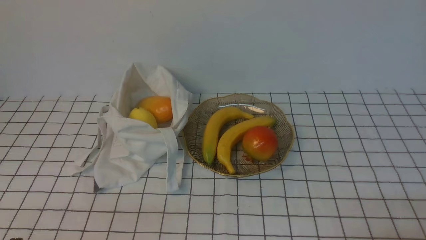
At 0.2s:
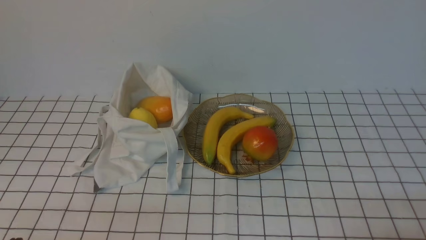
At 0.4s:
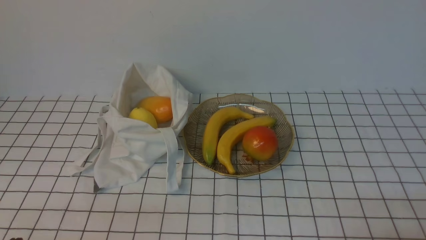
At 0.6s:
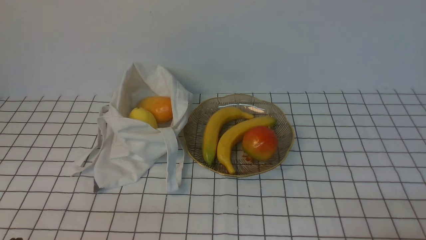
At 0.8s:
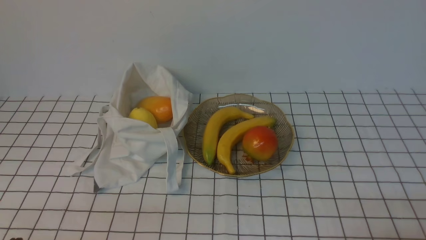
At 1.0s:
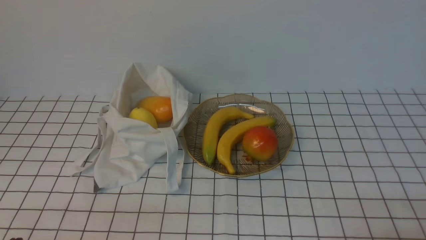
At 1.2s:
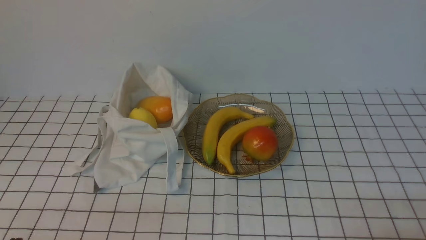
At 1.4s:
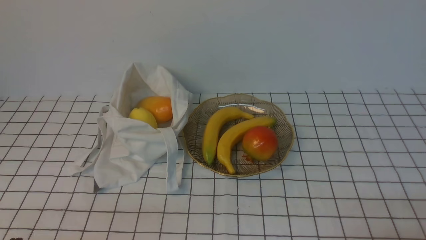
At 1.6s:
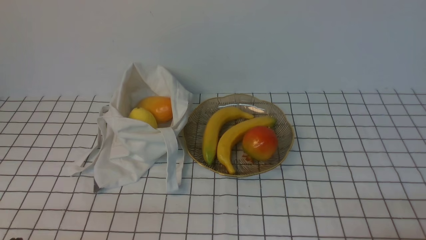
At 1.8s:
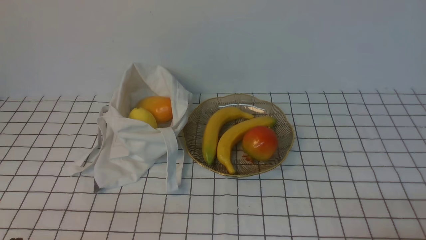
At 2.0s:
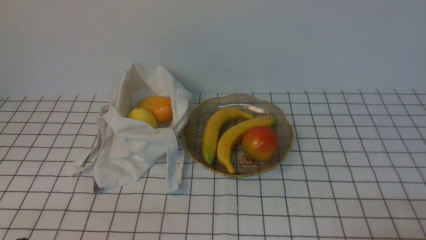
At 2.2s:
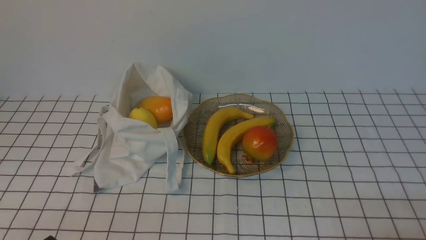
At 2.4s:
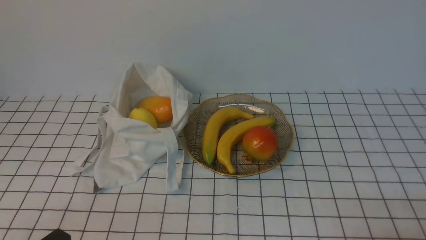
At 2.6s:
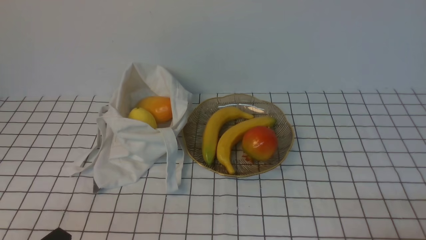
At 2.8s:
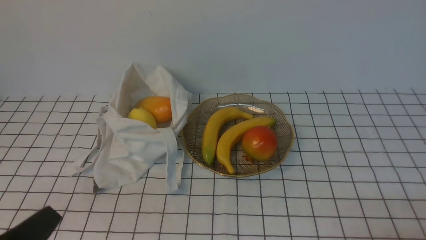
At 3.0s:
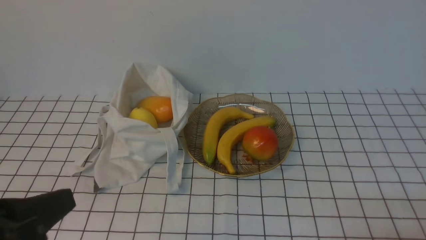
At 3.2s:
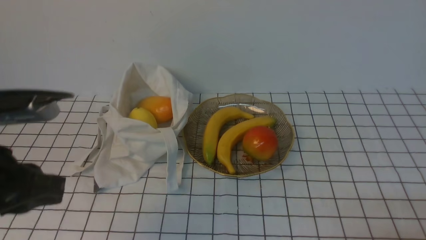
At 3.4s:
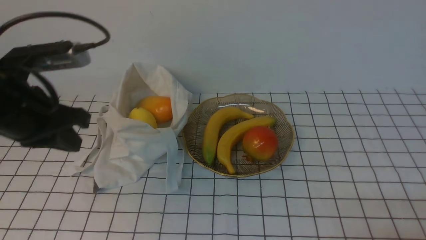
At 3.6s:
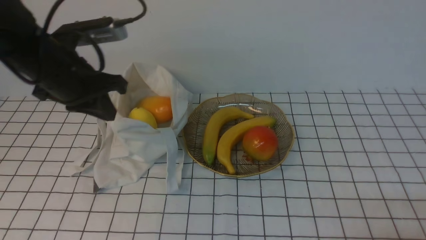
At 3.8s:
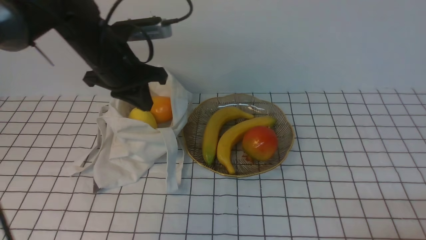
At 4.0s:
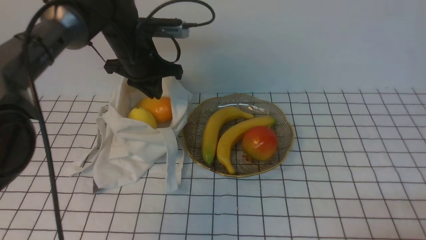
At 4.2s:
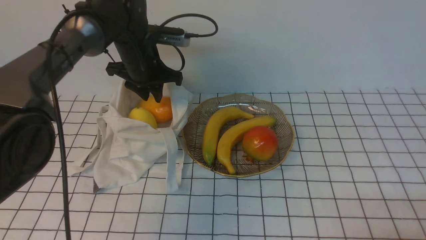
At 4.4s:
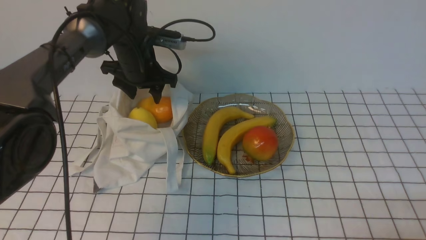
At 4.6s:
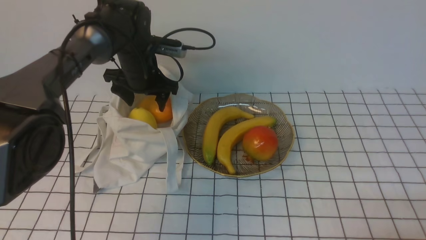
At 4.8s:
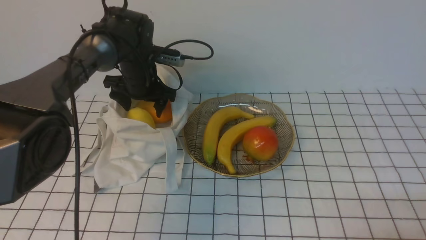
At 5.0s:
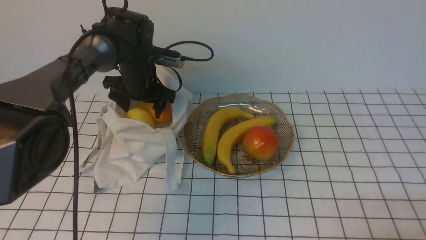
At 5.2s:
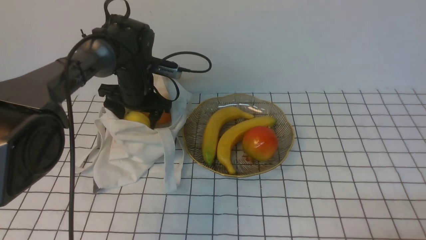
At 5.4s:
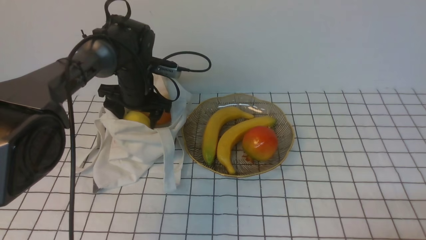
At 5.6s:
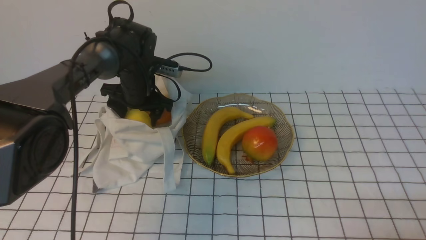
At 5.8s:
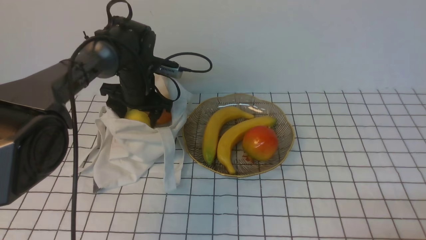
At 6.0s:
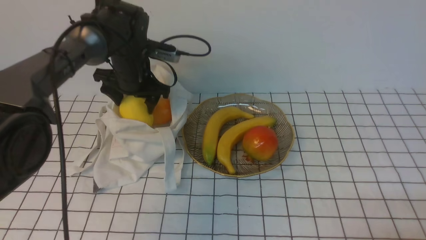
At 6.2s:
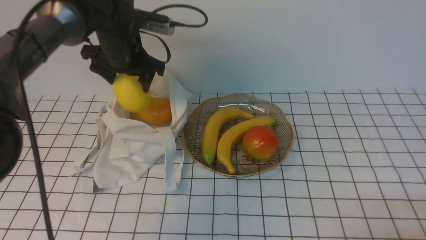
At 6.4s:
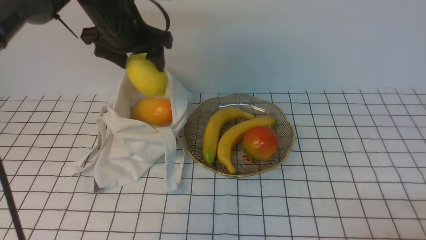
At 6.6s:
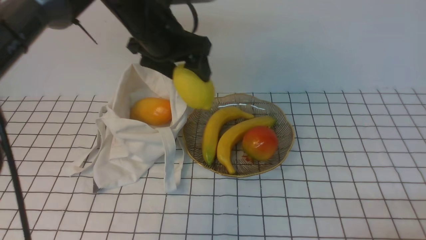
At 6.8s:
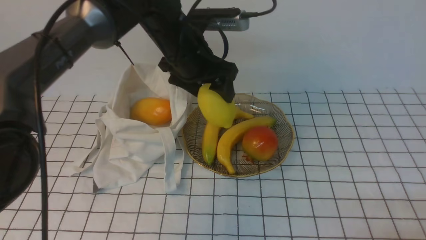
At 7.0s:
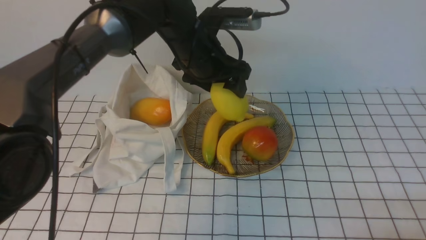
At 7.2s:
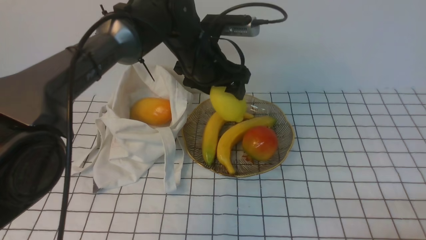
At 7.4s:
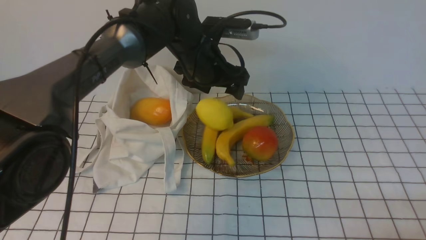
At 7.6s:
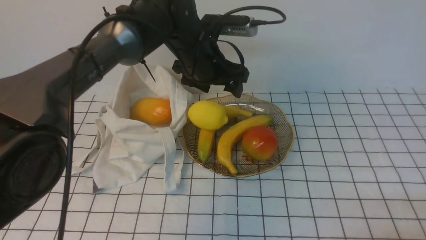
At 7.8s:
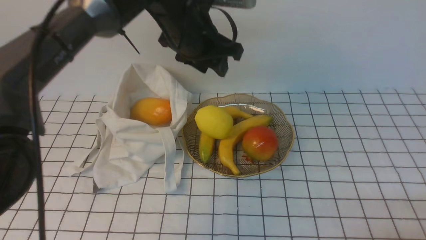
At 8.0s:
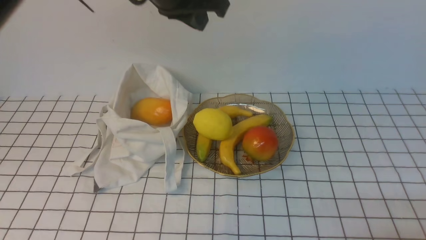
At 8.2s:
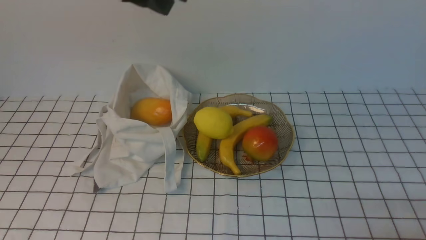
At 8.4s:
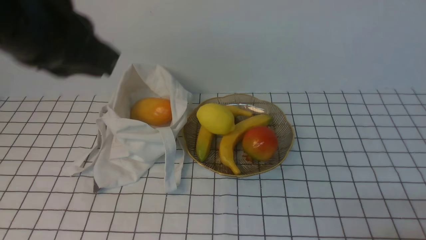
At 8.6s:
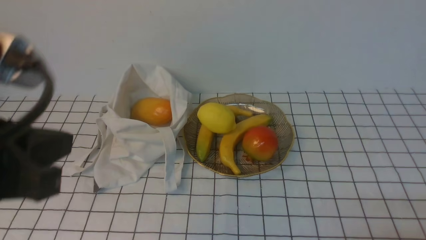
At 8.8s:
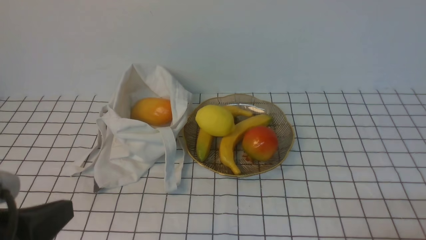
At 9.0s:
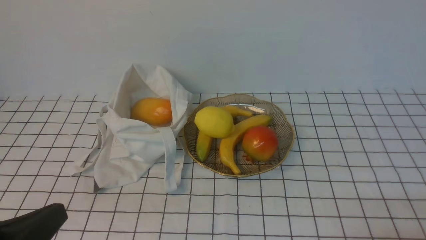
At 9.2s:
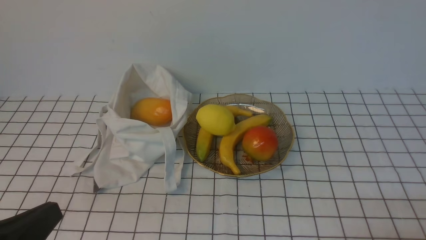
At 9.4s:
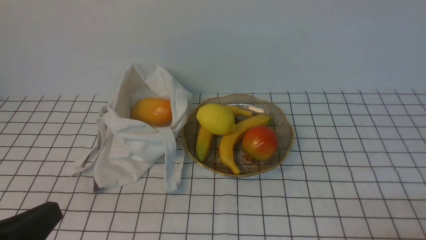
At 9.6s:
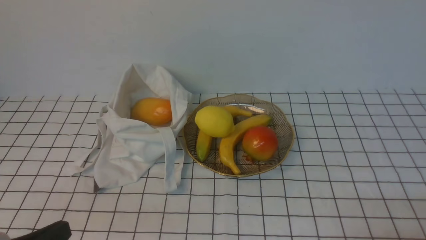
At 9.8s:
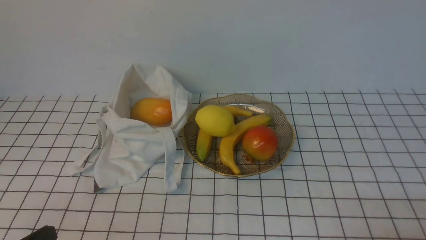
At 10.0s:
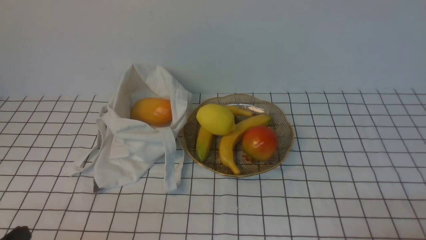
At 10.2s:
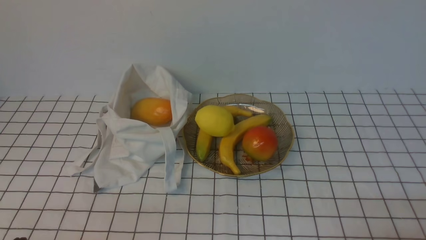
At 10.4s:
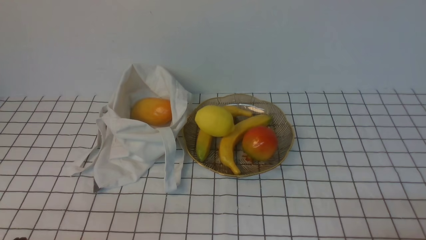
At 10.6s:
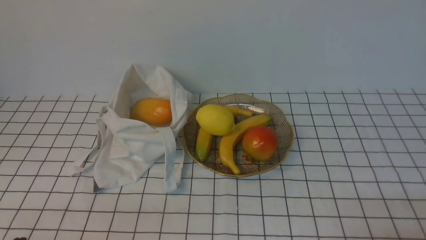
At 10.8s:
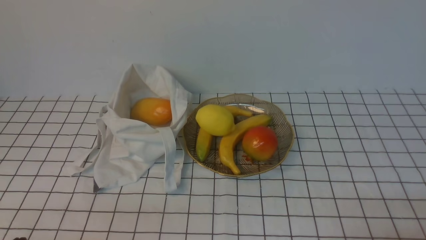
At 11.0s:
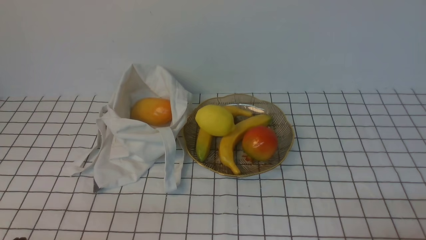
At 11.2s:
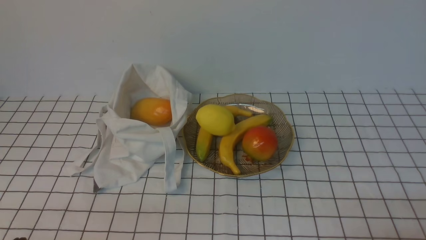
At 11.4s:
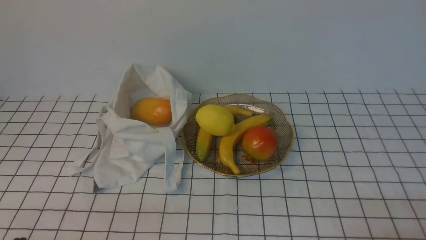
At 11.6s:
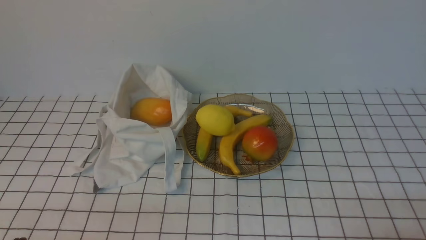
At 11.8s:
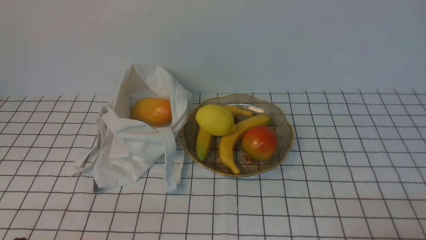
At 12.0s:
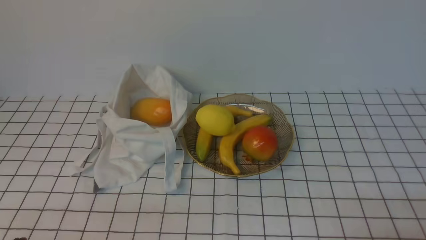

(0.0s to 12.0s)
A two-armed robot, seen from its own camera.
Step, 0.0s - 5.8s: use the left arm to grab a lemon from the bag.
Step, 6.0s - 7.6s: use the left arm to put the lemon into the empty plate on the right.
1.6s - 3.0s: The left gripper is displaced upward by some 10 cm.
3.0s - 4.4s: The left gripper is displaced forward by roughly 40 cm, and opens.
4.4s - 6.0s: The grippers move only a little.
6.0s - 7.6s: The left gripper is displaced to the right and upward by roughly 15 cm.
7.6s - 9.0s: The left gripper moves backward and to the left, approximately 40 cm, and closes.
9.0s - 10.4s: The left gripper goes some 10 cm downward.
10.4s - 12.0s: Both grippers stay put.

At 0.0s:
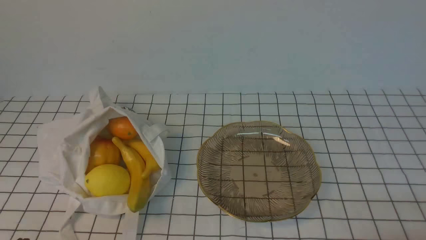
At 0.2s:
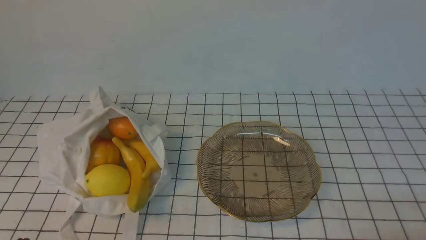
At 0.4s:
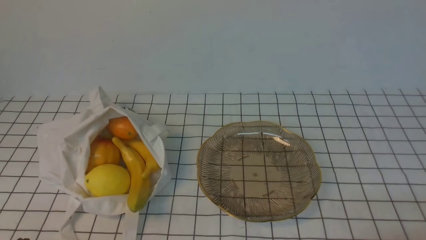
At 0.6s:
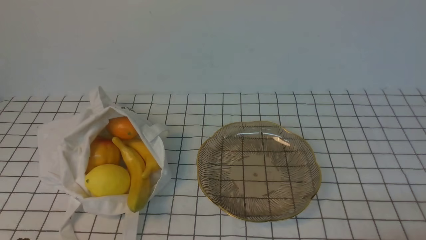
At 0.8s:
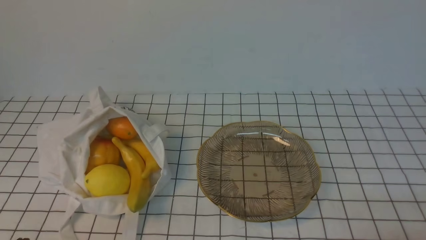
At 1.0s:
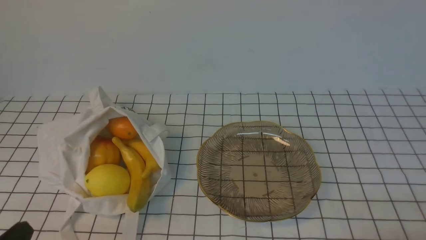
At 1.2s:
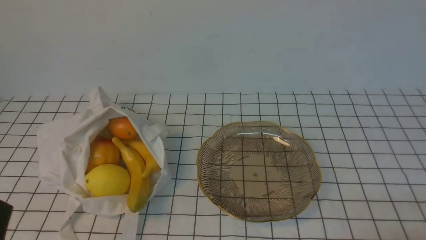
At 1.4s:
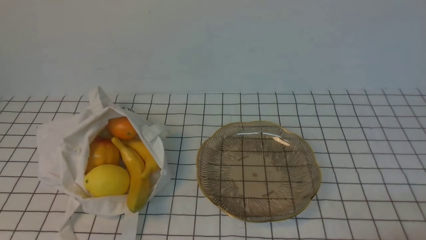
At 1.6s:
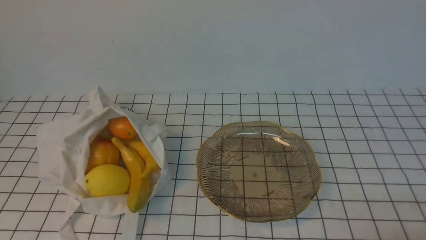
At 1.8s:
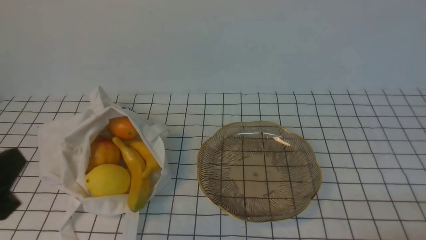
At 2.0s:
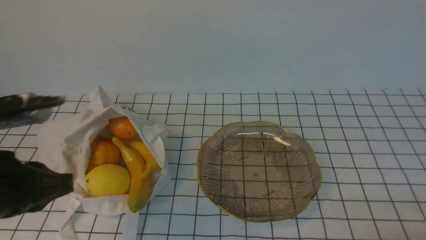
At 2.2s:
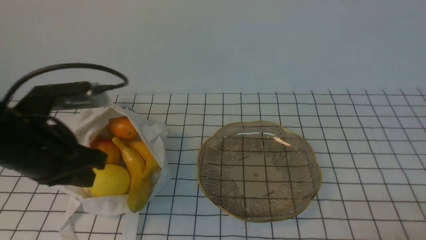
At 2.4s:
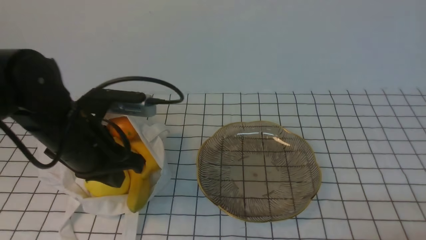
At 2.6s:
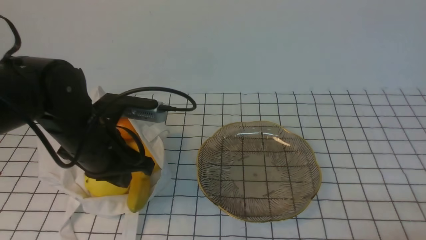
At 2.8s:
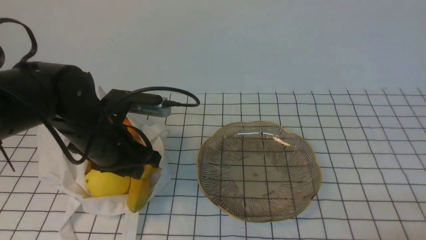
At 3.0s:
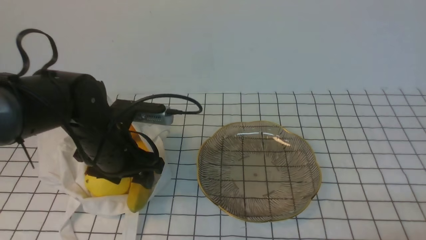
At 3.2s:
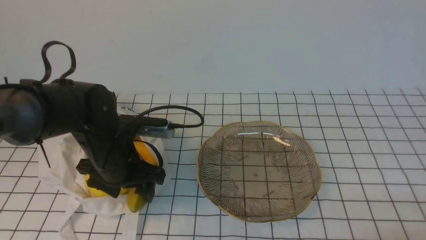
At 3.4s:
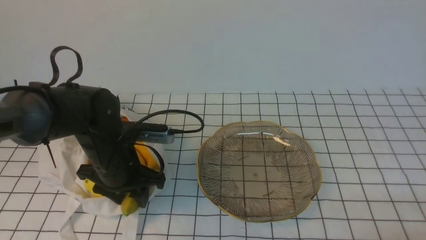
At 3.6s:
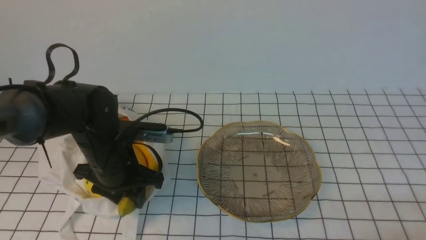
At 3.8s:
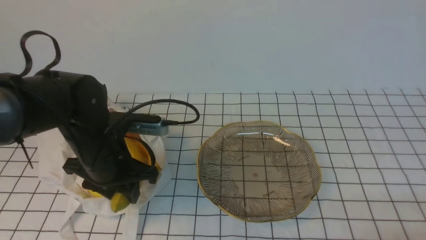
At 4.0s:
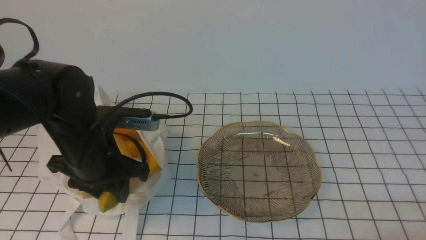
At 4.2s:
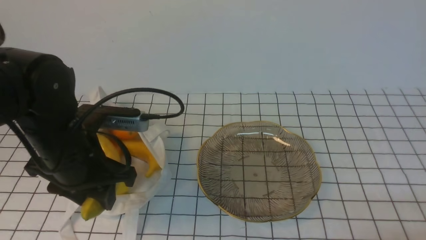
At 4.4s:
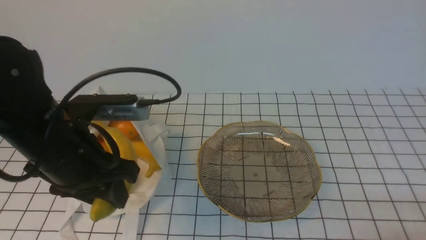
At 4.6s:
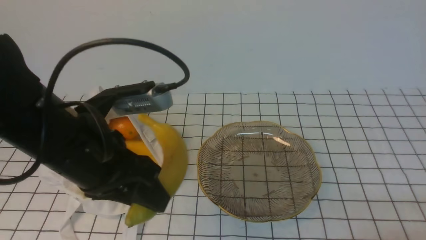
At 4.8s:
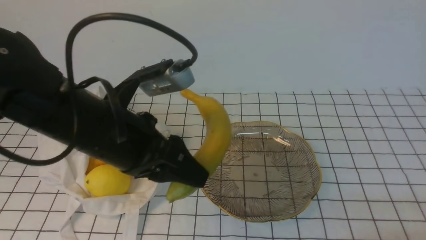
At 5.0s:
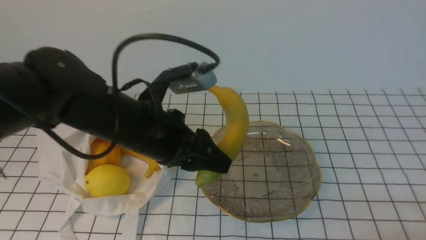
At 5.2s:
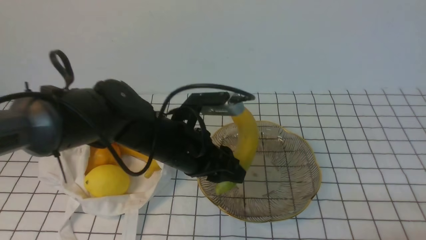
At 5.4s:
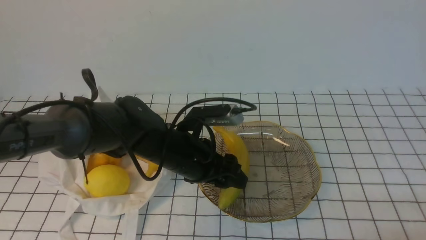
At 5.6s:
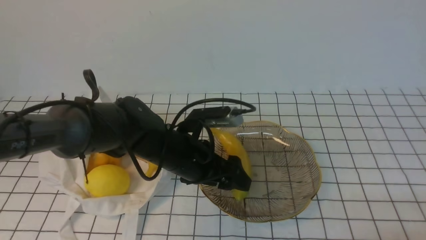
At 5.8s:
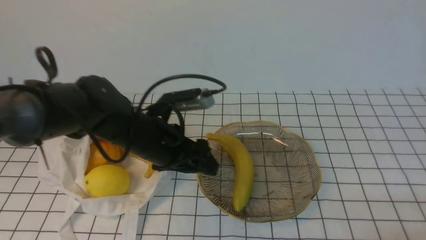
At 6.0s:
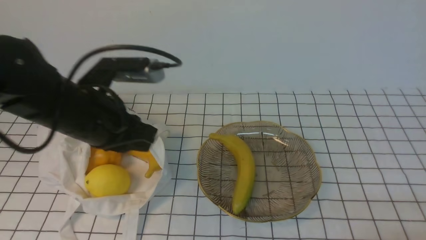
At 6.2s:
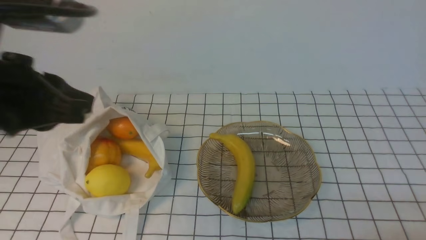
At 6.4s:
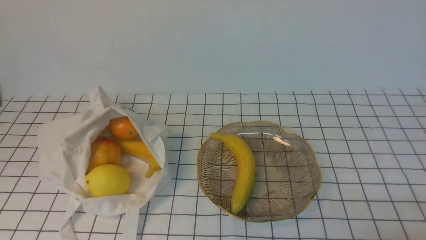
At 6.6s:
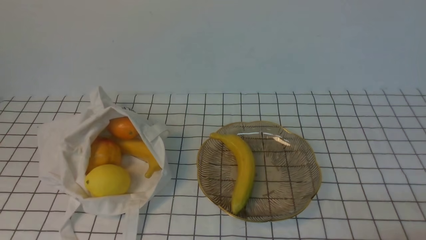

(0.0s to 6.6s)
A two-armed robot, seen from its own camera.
Step, 0.0s - 4.0s: use the left arm to grab a banana from the bag.
Step, 4.2s - 5.8s: use the left arm to put the banana into the empty plate on the right.
1.6s - 3.2s: The left gripper shifts approximately 25 cm forward and to the right, and opens up.
3.2s - 5.0s: The left gripper is displaced upward and to the right by approximately 10 cm.
5.0s - 6.6s: The left gripper travels backward, to the left and upward by approximately 25 cm, and closes up.
